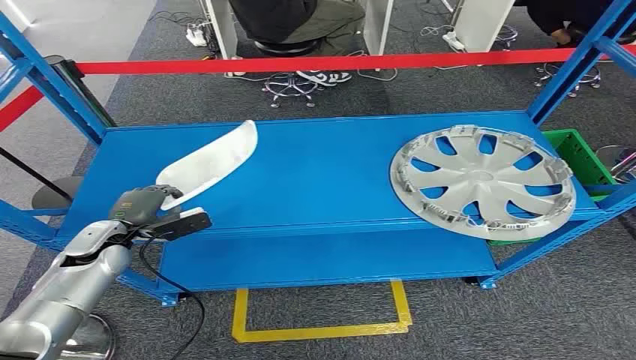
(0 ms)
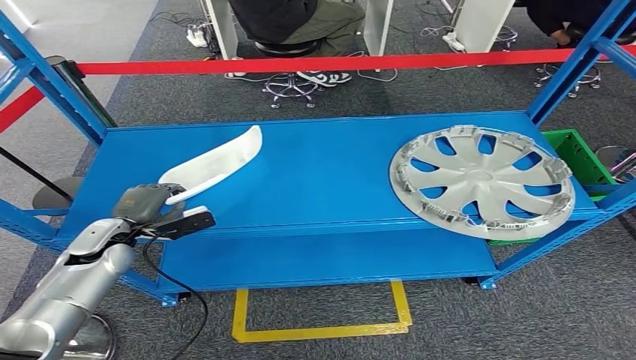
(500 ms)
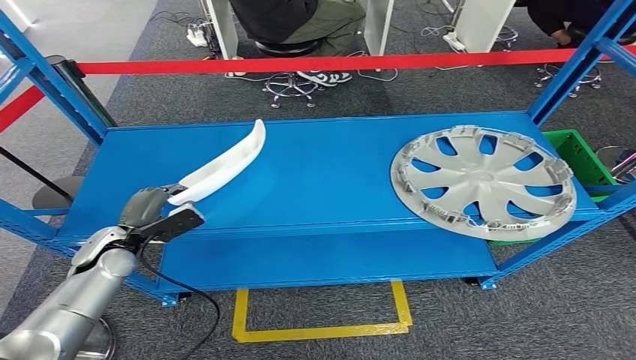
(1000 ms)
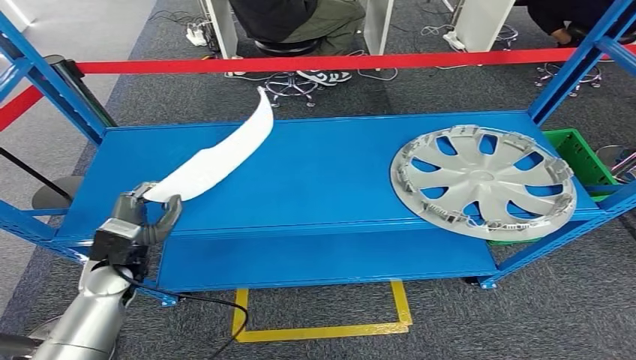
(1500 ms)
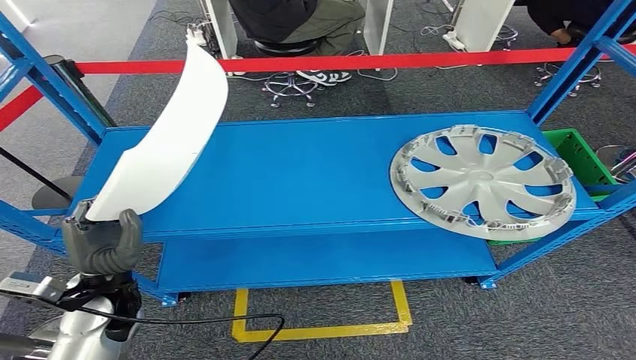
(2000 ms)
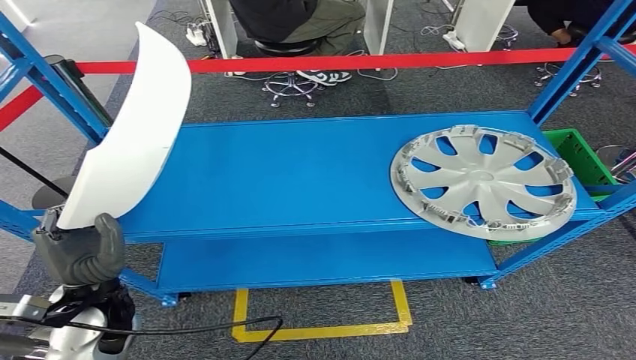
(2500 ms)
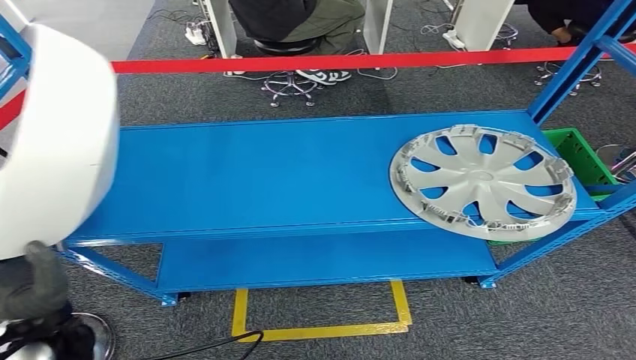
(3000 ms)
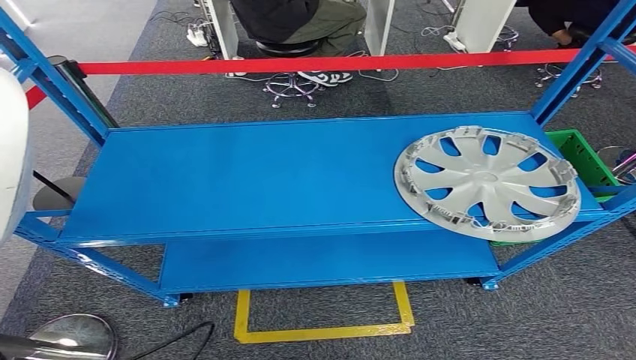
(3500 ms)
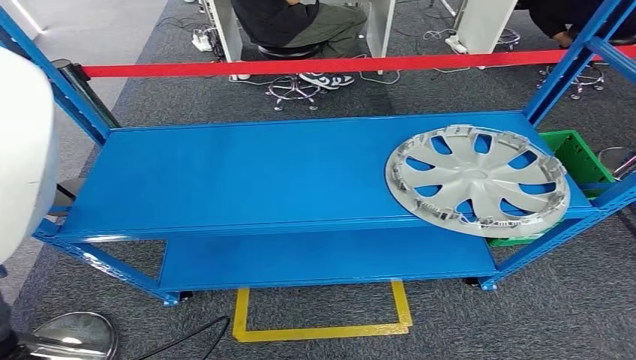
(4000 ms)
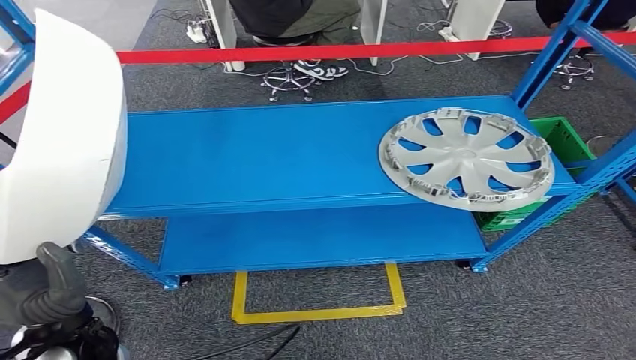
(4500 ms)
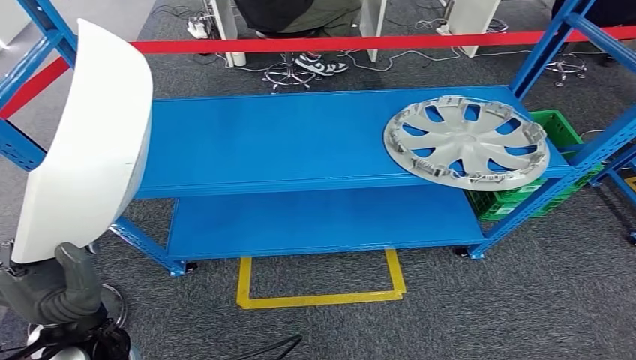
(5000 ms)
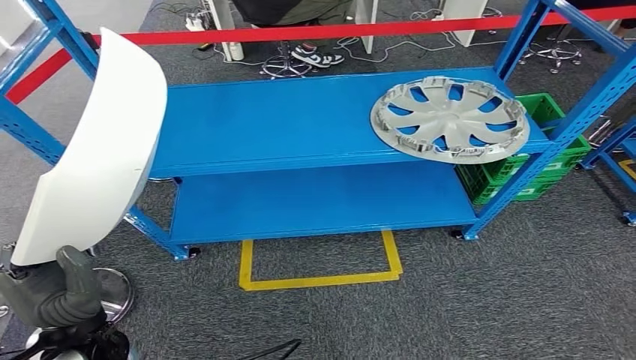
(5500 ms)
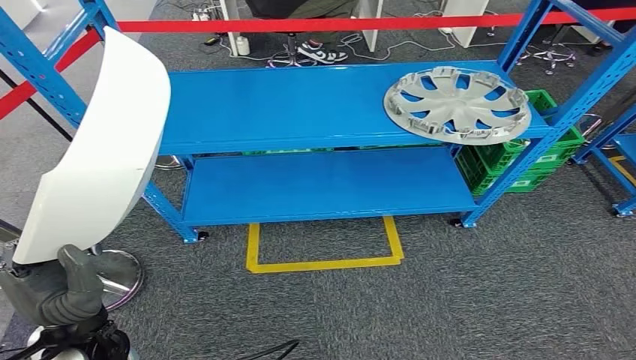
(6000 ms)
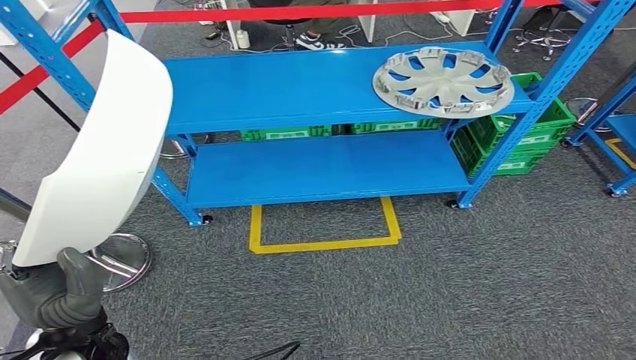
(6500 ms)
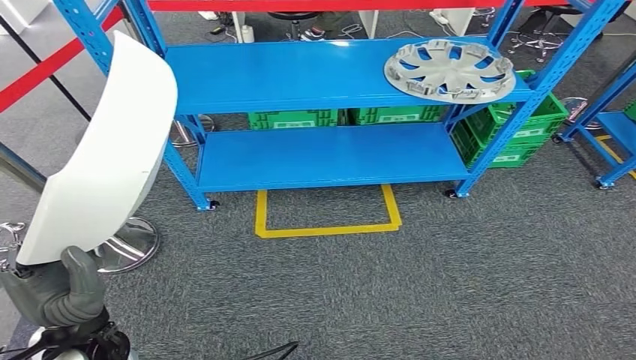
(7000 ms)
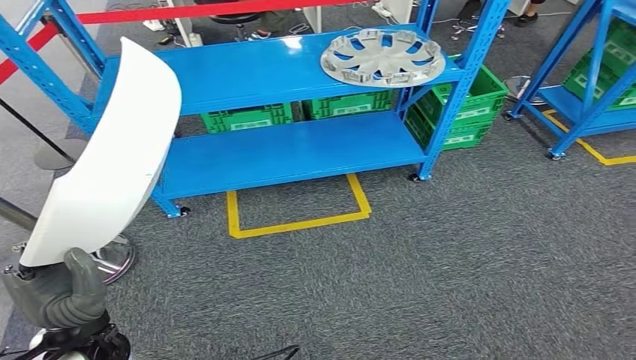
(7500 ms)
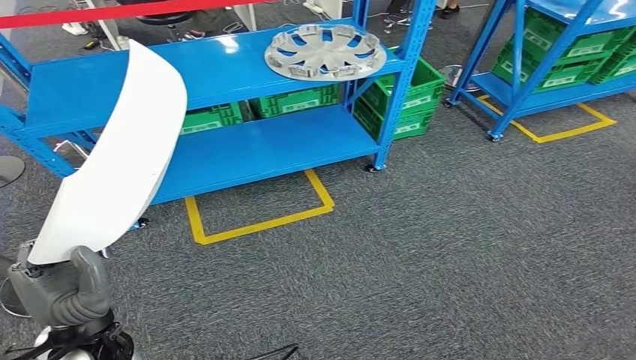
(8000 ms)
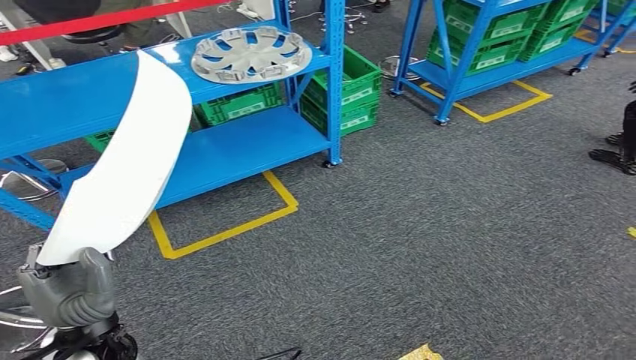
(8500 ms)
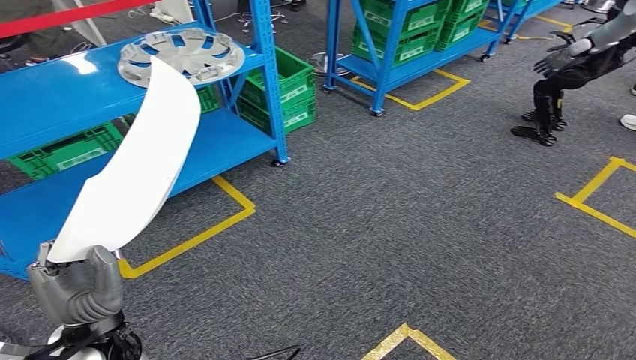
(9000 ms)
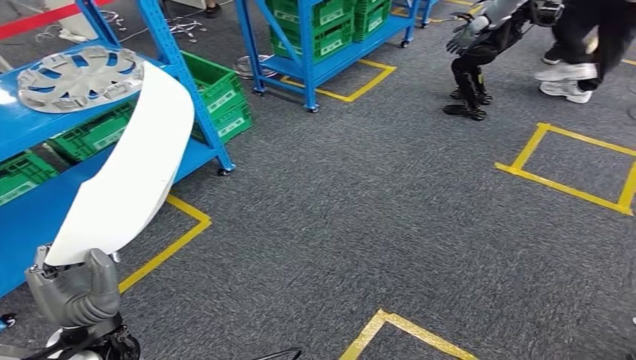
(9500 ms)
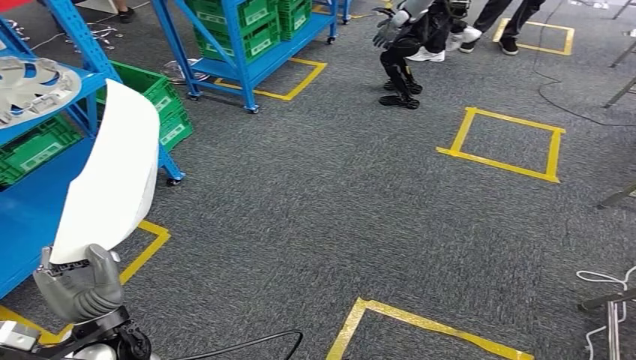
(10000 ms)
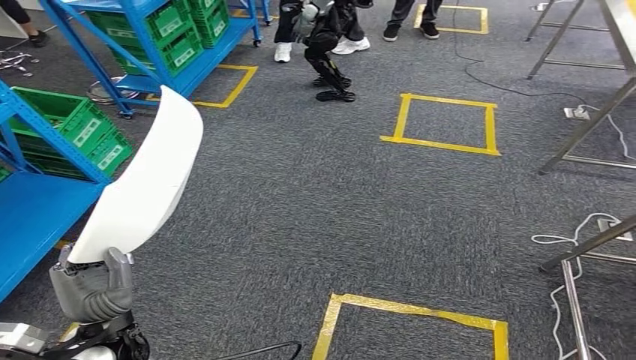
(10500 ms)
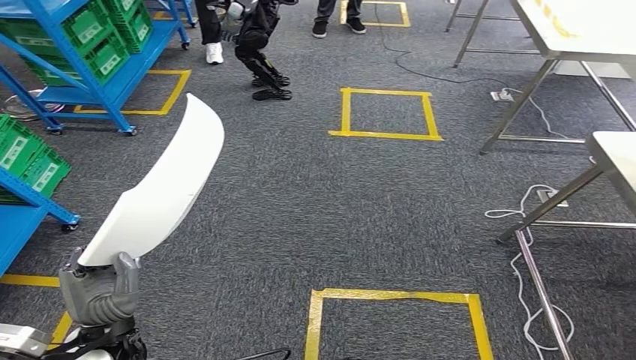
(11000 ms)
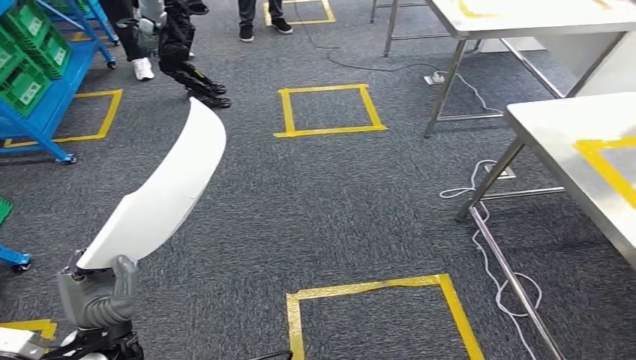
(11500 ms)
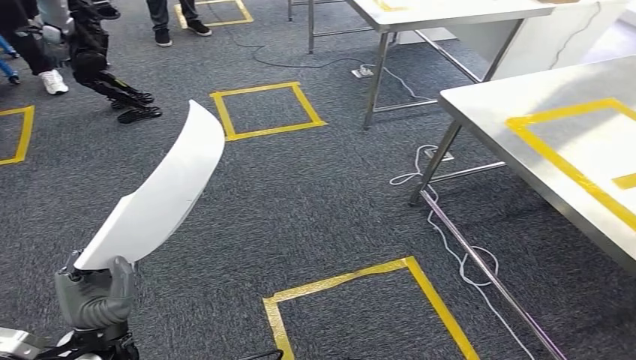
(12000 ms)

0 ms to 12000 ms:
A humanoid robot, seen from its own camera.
Step, 0 ms to 3500 ms: Pick up the small component from the shelf.

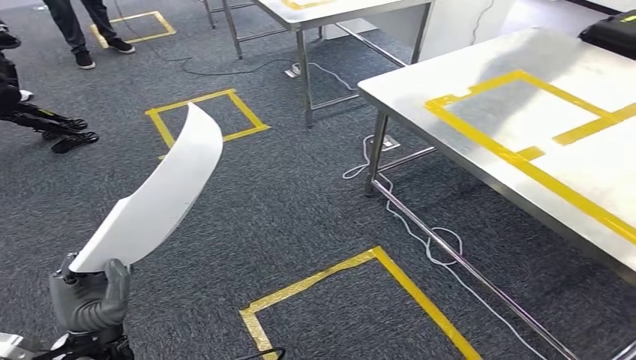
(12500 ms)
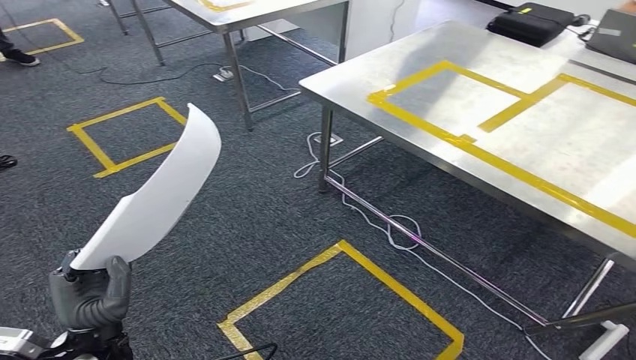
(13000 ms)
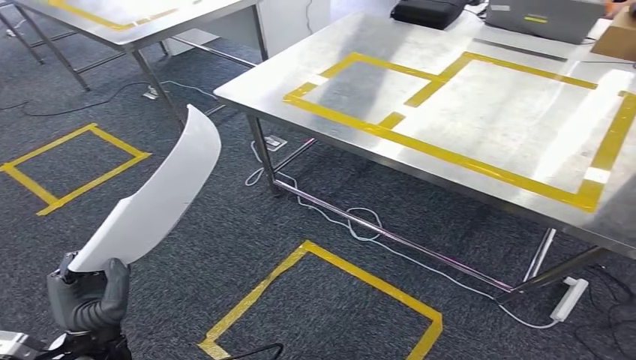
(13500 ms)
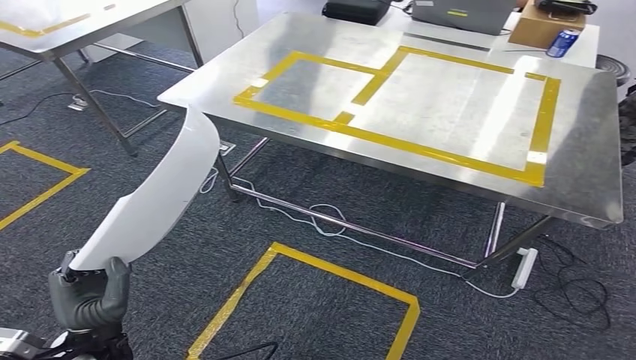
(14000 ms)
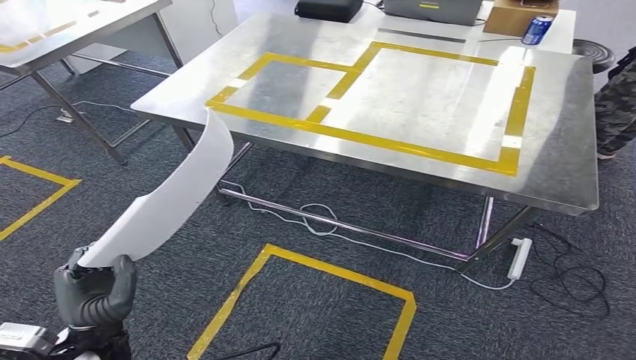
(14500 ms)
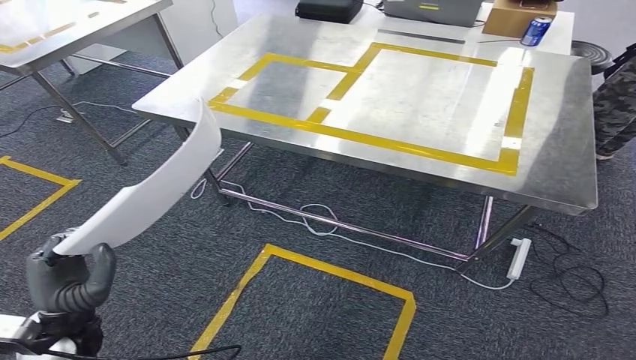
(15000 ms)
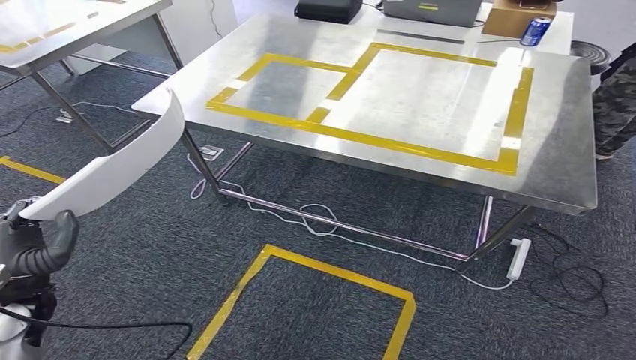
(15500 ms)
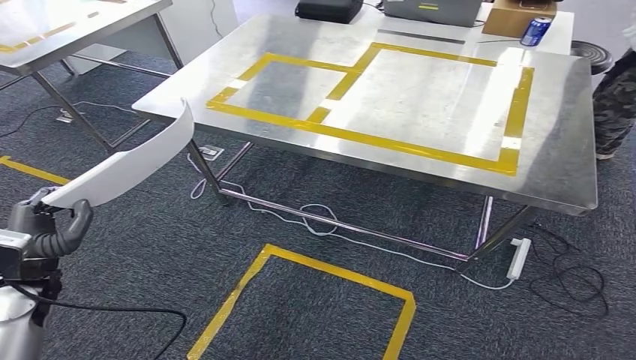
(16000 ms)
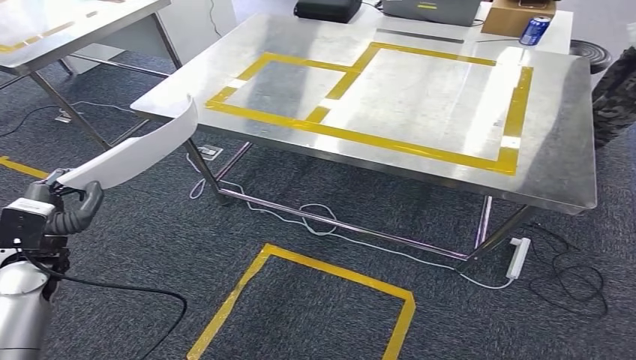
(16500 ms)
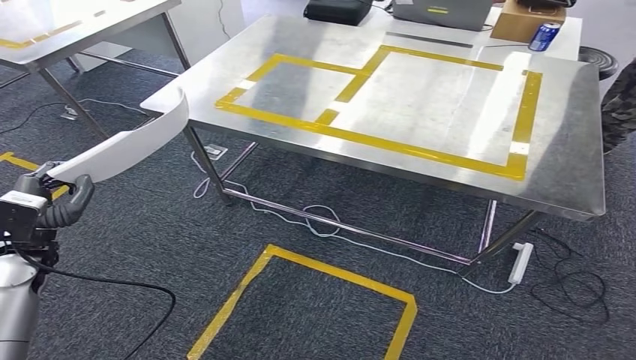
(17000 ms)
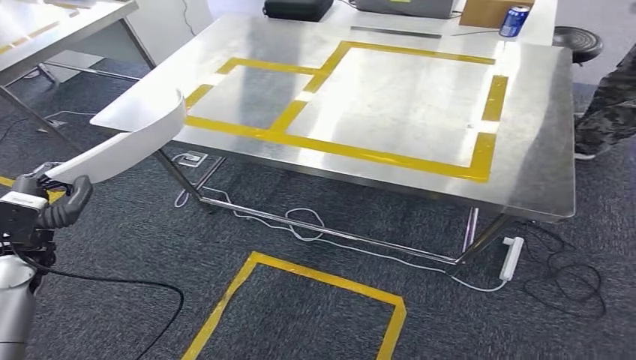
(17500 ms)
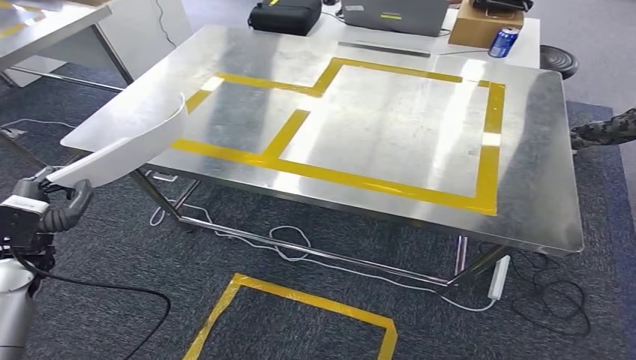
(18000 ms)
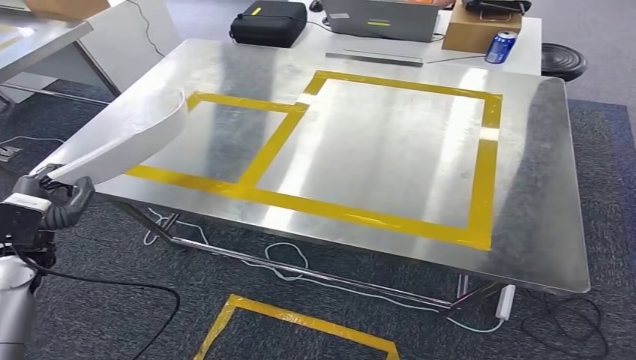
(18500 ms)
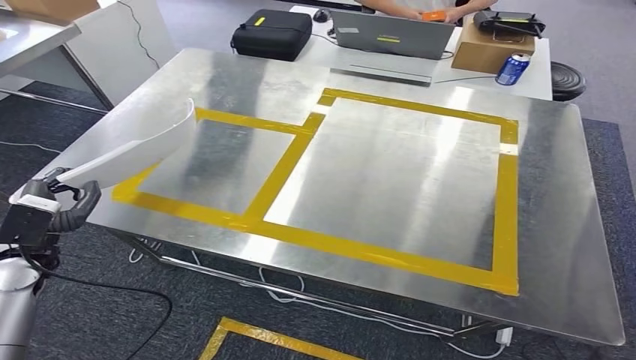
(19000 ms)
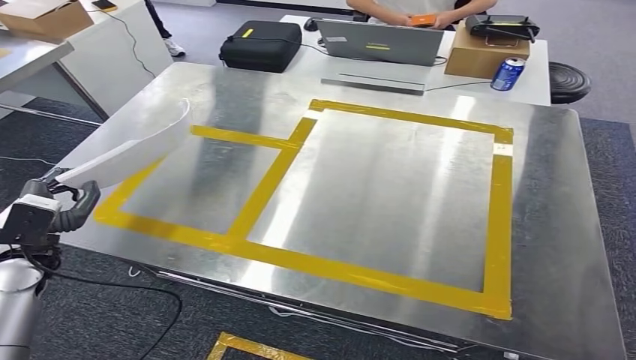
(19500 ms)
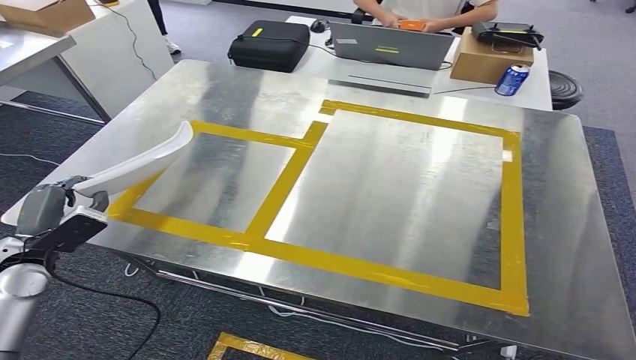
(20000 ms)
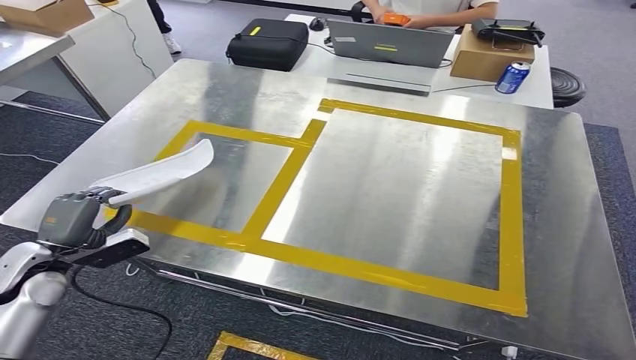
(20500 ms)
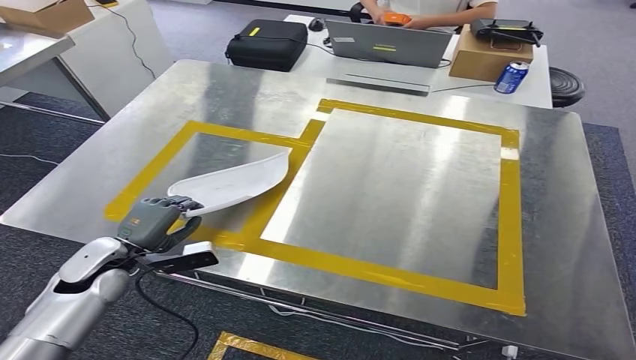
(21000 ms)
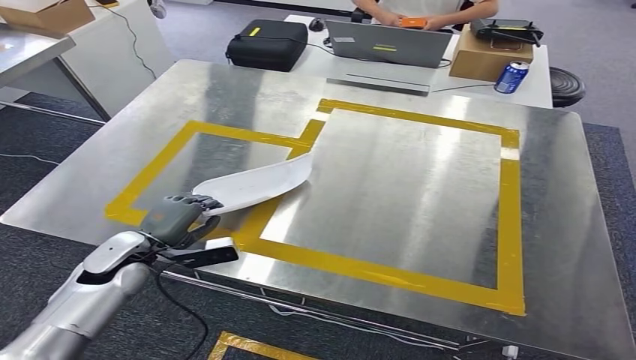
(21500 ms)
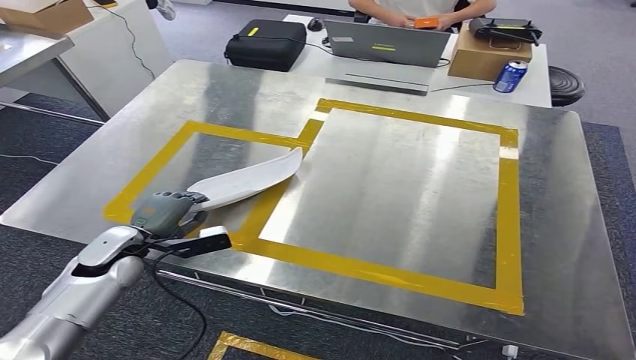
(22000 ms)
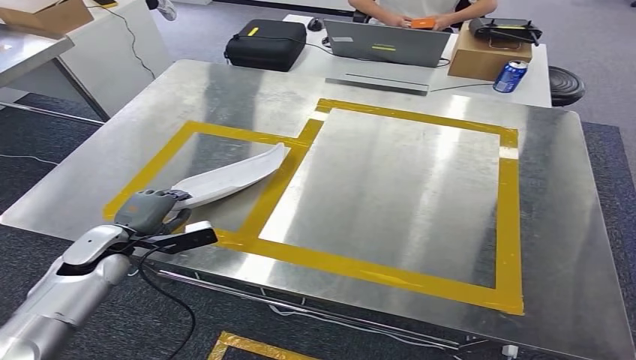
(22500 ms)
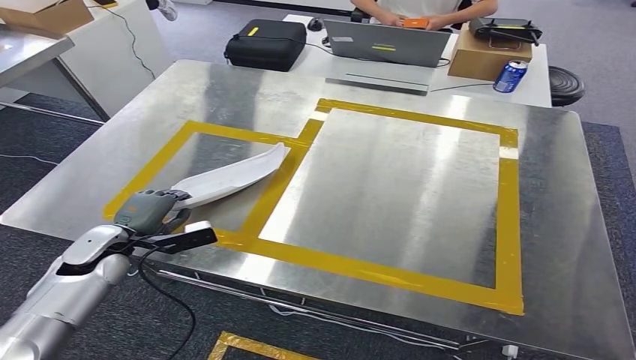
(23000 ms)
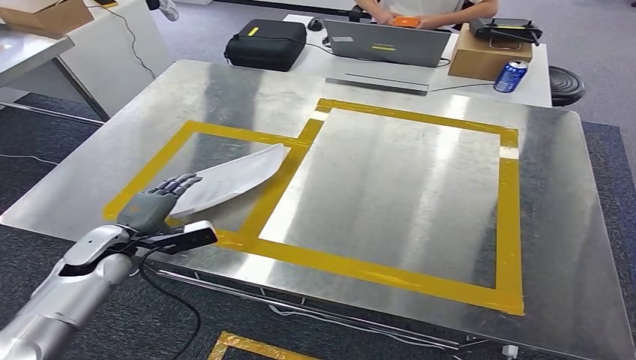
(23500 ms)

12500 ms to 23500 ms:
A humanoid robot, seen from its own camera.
Step, 12500 ms to 16500 ms: Move the small component to the workbench.
14500 ms to 16000 ms: The left hand travels to the left and forward by some 15 cm.
21500 ms to 23500 ms: The hands make only small movements.
